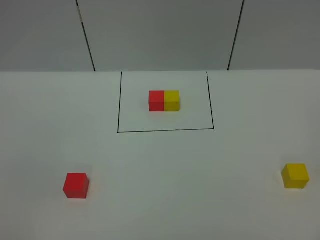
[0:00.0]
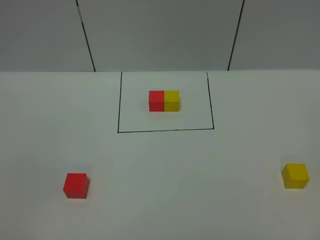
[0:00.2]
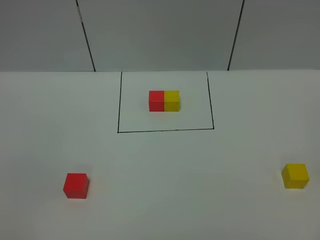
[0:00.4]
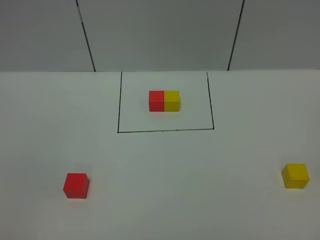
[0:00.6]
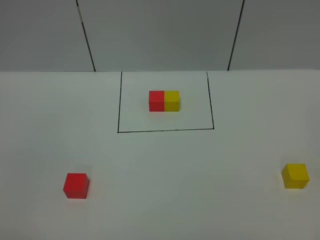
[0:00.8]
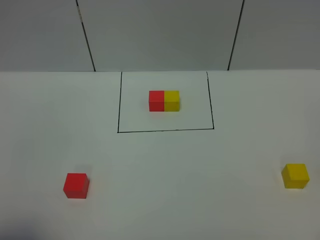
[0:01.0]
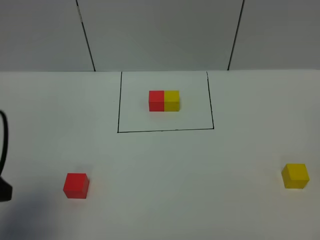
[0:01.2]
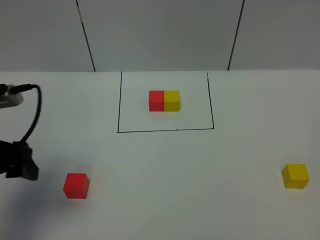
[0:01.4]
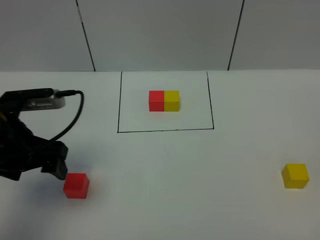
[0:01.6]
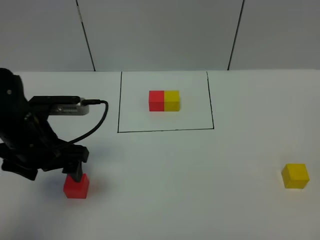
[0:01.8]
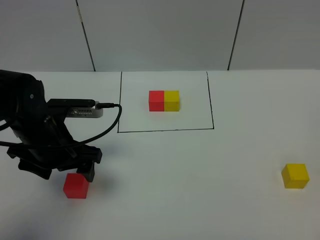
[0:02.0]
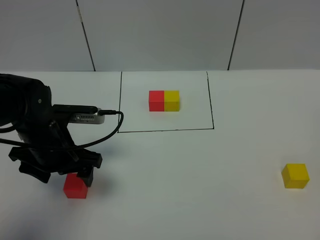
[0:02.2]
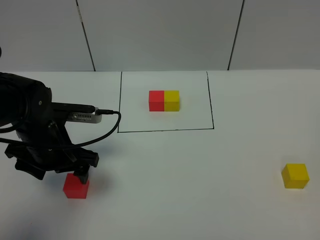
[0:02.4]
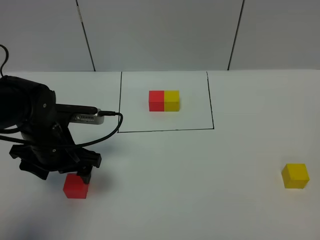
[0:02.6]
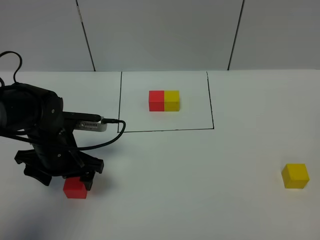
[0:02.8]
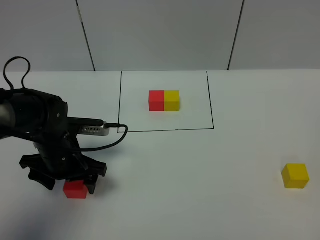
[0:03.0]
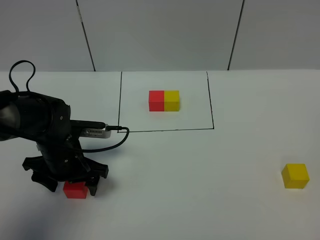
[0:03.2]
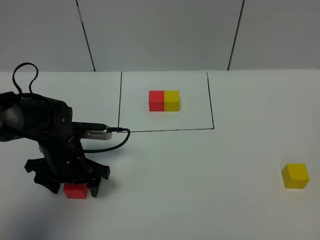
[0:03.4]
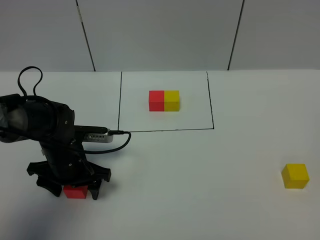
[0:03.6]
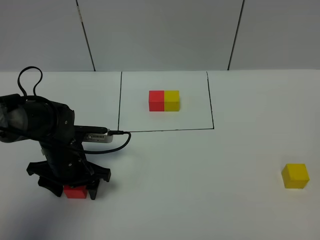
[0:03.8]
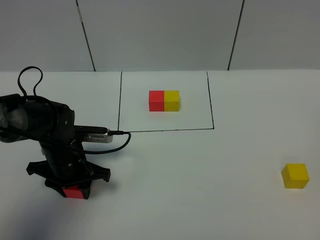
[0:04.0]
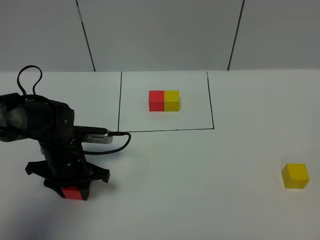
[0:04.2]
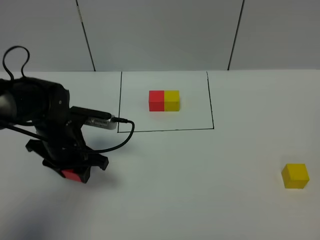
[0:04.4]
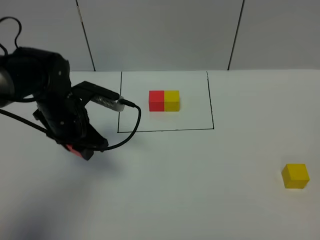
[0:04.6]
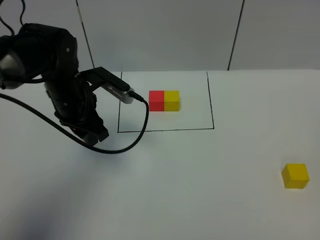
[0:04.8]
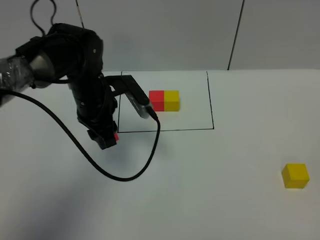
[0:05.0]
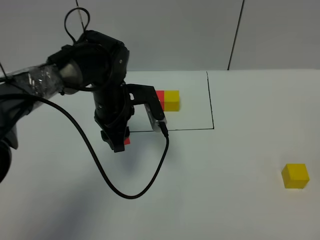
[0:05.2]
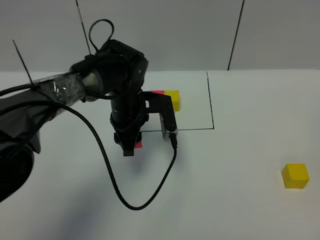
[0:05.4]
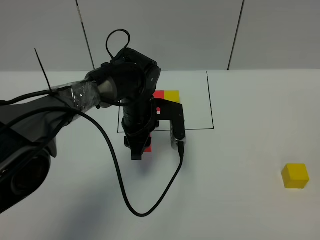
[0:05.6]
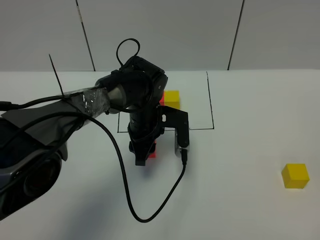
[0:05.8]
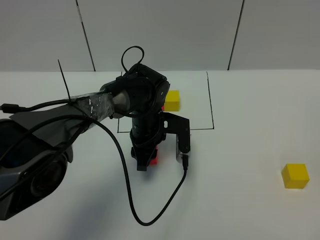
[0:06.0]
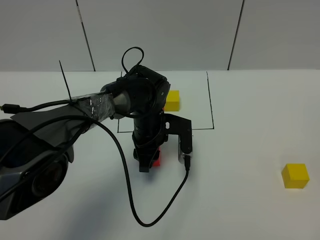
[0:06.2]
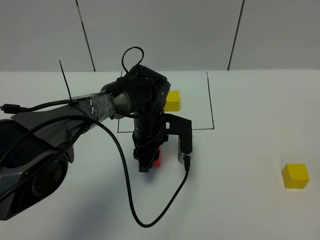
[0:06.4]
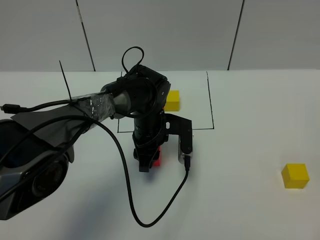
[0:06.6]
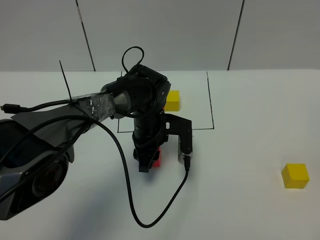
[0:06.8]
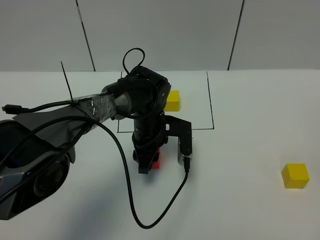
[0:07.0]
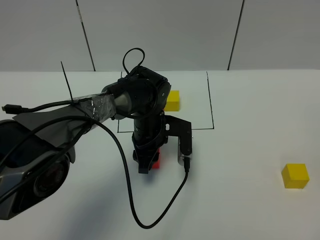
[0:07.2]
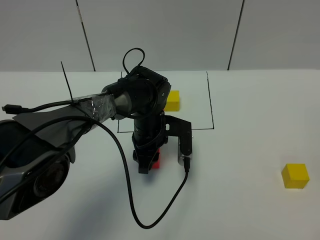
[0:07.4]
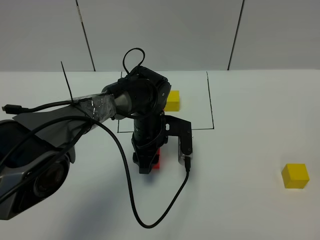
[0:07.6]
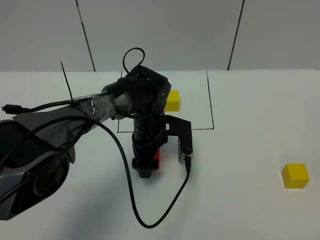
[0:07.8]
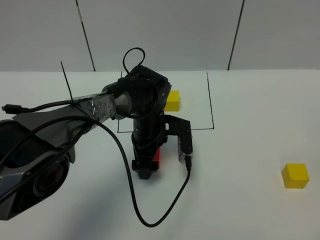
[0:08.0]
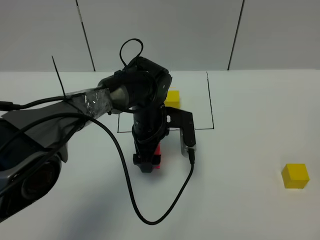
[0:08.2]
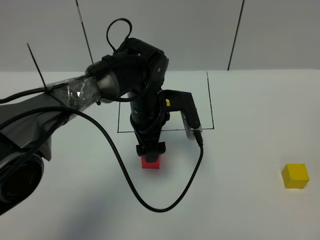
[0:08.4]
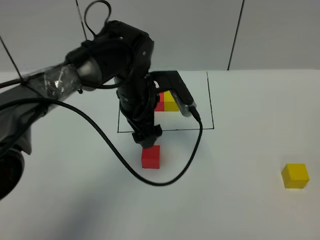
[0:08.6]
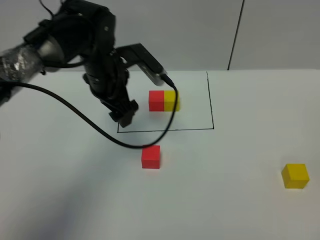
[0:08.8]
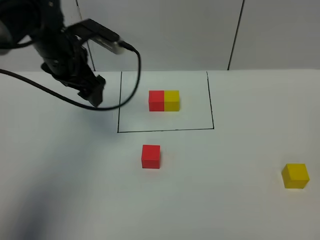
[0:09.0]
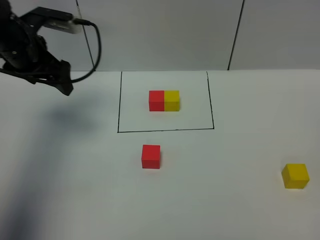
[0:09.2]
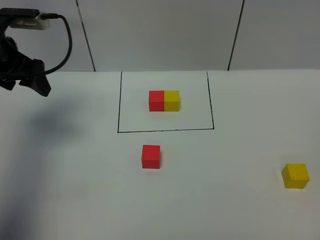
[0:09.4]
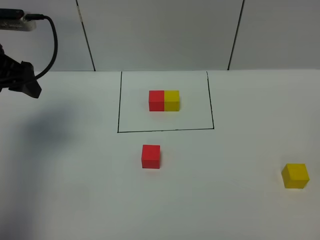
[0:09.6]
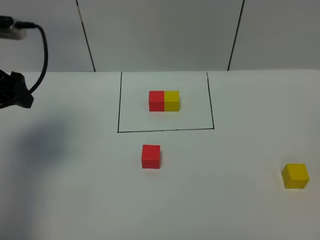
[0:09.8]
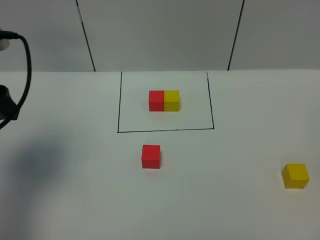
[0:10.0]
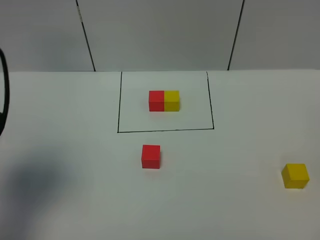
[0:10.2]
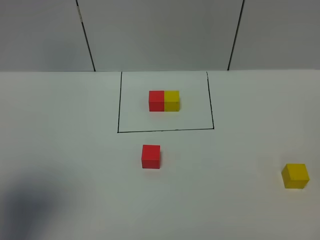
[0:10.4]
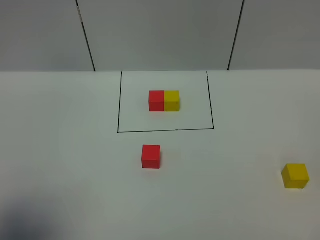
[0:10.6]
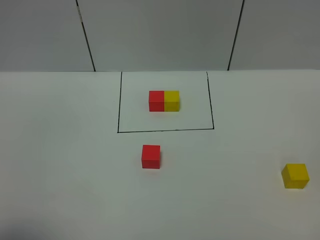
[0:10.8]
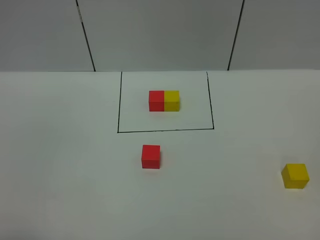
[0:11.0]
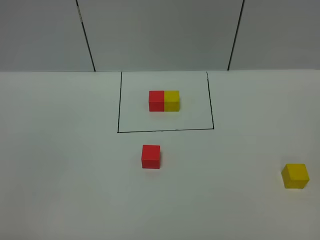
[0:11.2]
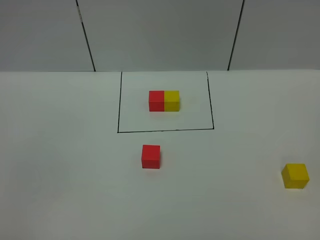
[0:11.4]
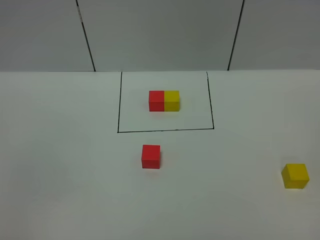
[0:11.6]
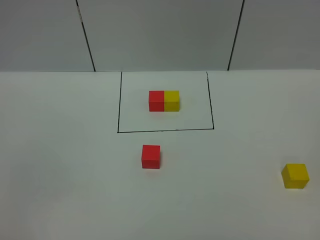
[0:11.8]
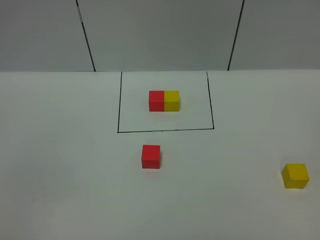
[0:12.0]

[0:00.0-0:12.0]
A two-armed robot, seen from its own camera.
Task of the whole recording: According to the building block template in front, assemble the scattered blocks together.
Step, 0:01.2 to 0:08.6: Put the red cube in the center of the table.
0:00.0 to 0:01.6: The left gripper travels forward by approximately 30 cm.
0:01.6 to 0:03.0: The left gripper goes about 10 cm downward.
0:03.0 to 0:04.4: The left gripper closes.
0:04.4 to 0:06.0: The left gripper moves to the right and forward, some 15 cm.
0:06.0 to 0:07.6: Both grippers stay put.
0:07.6 to 0:09.0: The left gripper shifts approximately 25 cm to the left and upward, and opens.
0:09.0 to 0:10.4: The left gripper moves backward, about 30 cm.
0:10.4 to 0:12.0: The left gripper travels backward and downward by approximately 20 cm.

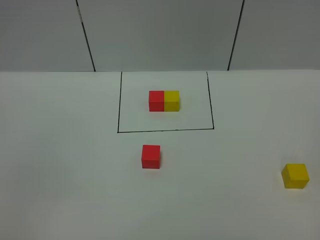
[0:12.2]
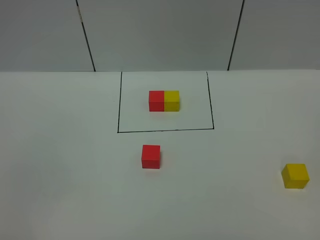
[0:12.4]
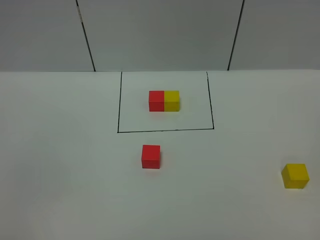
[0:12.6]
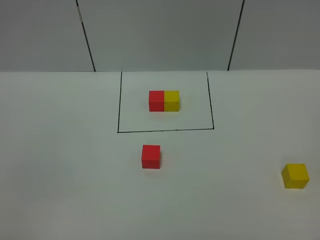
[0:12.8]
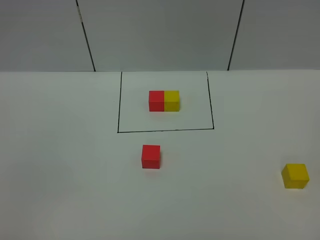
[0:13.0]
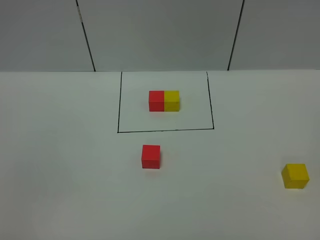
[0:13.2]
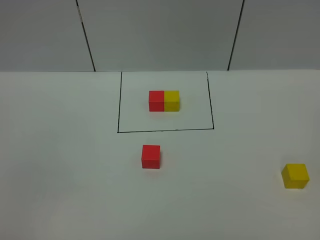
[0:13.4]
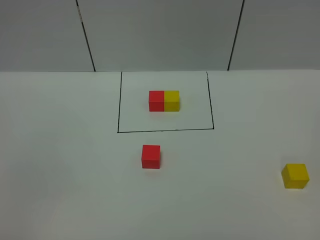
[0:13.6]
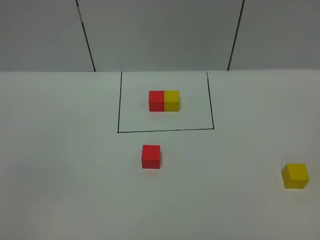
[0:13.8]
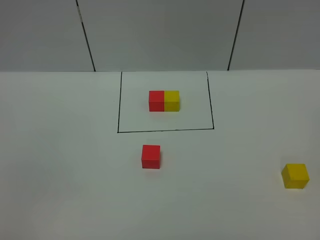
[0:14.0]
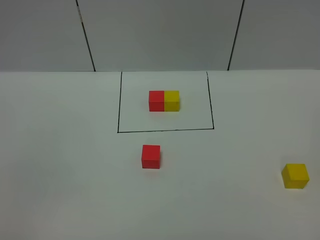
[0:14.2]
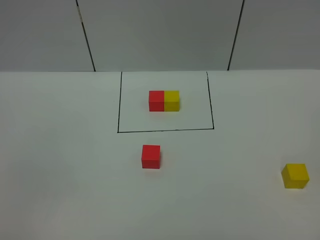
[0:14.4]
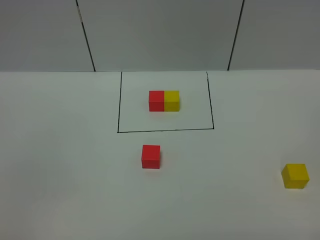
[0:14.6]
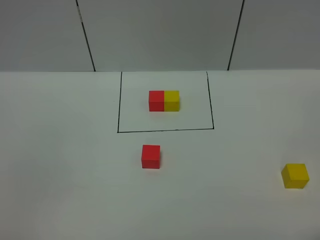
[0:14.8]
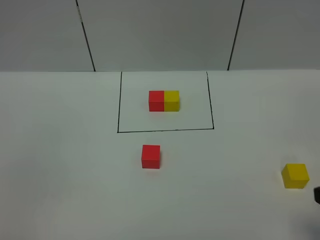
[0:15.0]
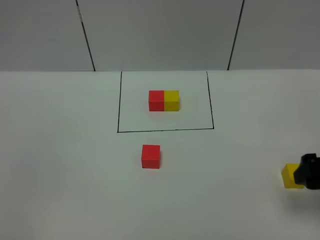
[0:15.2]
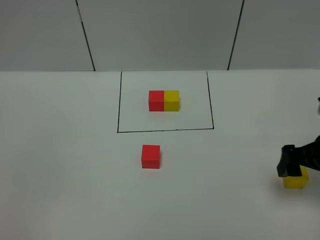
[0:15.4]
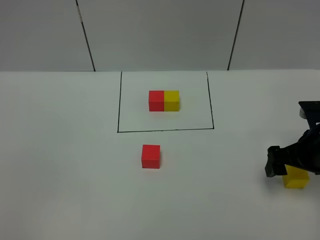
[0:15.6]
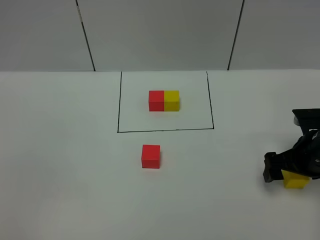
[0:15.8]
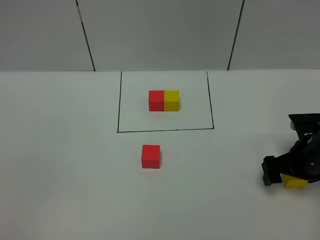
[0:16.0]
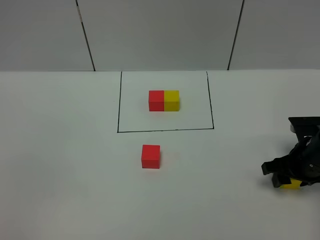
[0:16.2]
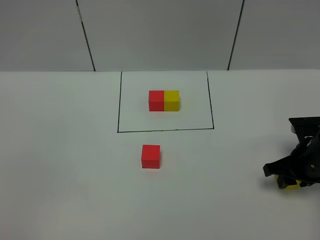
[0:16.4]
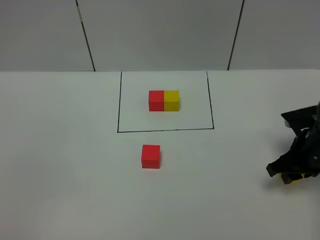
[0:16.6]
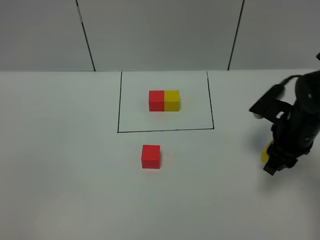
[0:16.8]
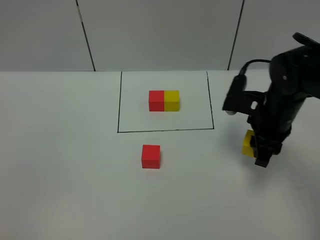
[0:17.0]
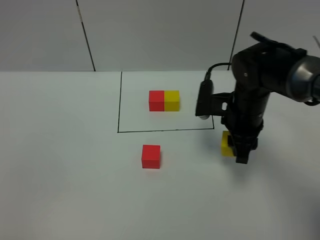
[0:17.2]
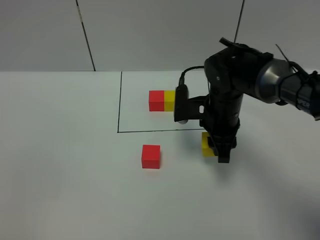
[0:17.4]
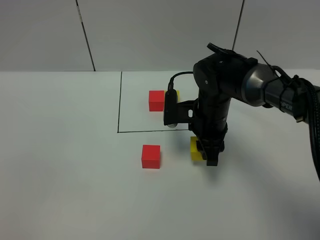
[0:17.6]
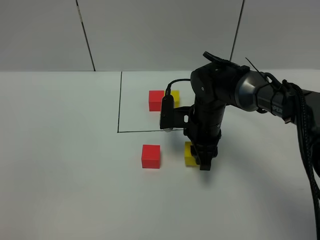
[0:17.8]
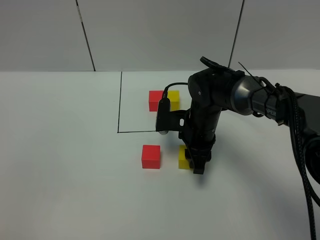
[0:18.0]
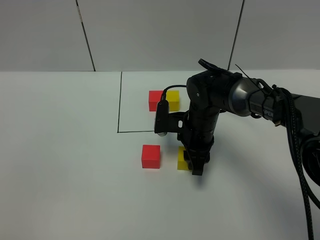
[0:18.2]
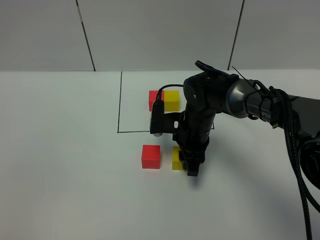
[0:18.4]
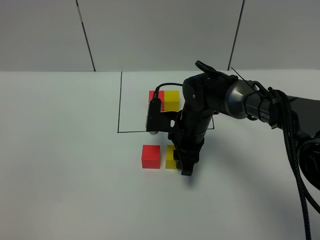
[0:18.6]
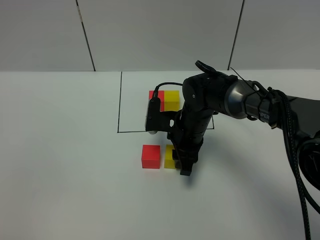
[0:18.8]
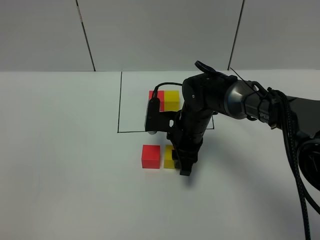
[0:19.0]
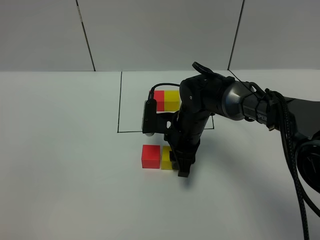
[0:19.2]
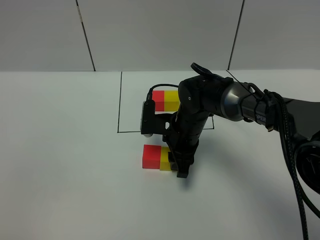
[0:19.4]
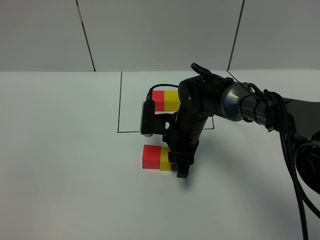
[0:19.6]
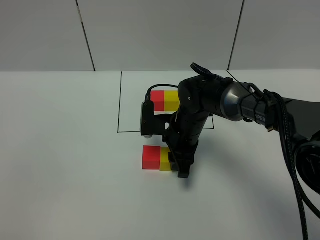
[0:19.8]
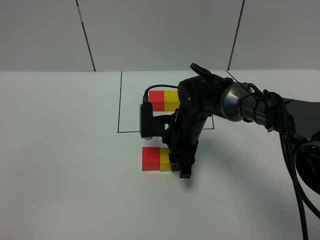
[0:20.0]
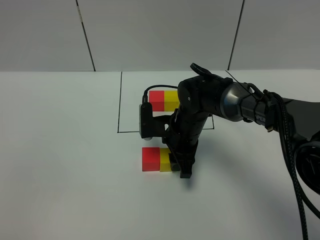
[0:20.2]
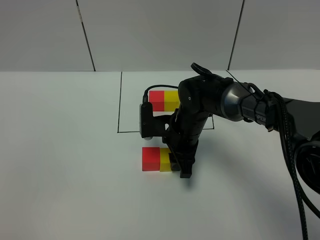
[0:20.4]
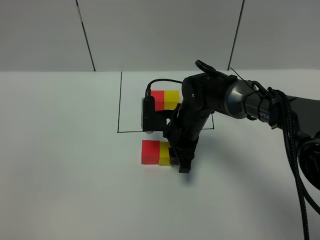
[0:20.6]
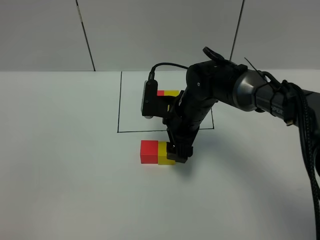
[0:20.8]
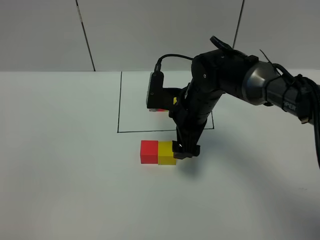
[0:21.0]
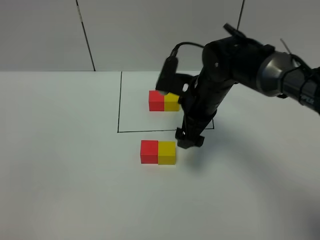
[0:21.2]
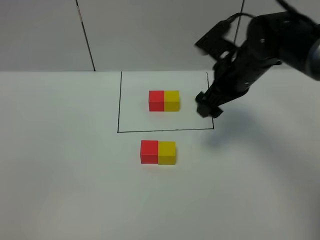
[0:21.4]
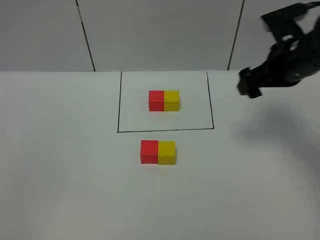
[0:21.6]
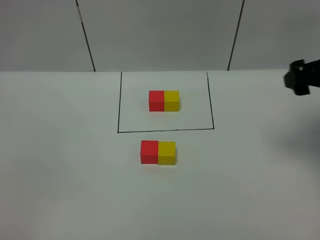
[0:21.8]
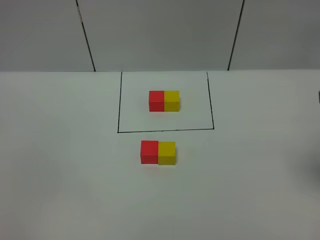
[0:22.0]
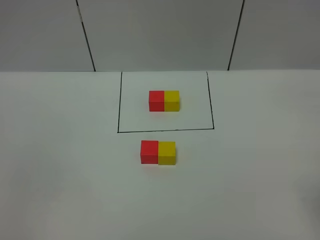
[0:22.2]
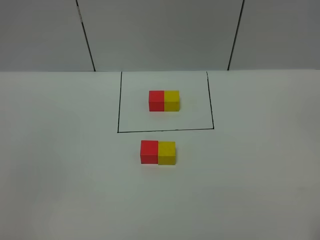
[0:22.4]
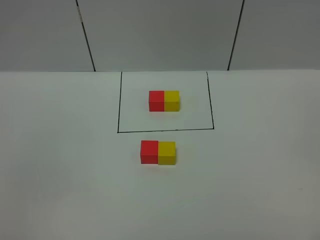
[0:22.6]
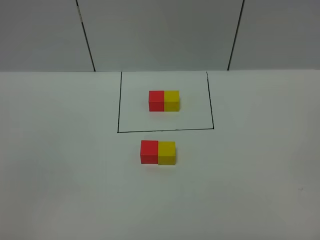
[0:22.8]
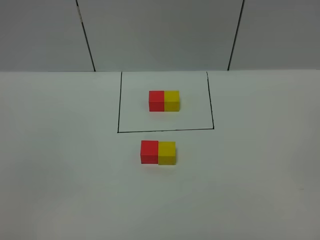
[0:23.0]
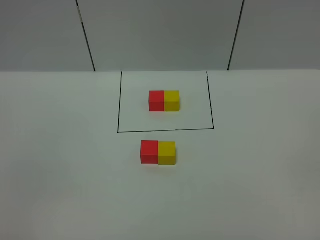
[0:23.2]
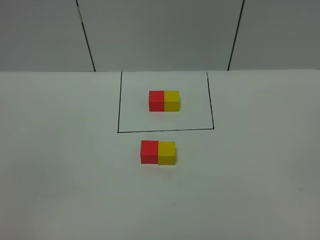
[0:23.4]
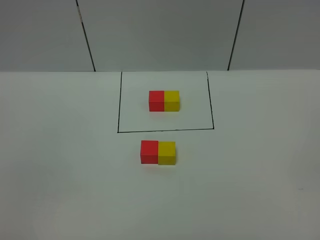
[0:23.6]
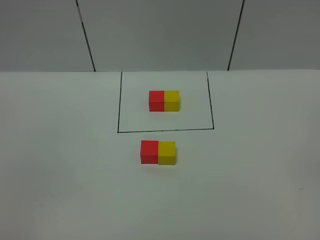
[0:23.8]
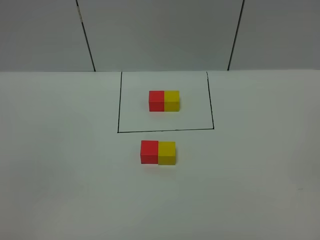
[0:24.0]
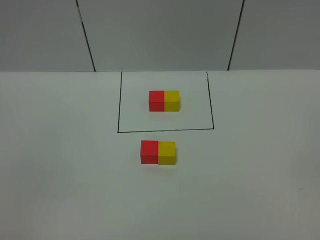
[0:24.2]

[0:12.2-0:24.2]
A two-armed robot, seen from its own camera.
Task of the whole recording: According to the building block template in front, assemble the scattered blocks together.
Step, 0:12.2 to 0:21.2: Put the yellow cube on the right of the red cube.
0:12.2 to 0:13.8: The two grippers keep their place.
0:13.8 to 0:15.2: The right gripper moves forward, some 25 cm, and opens its fingers.
0:15.2 to 0:16.6: The right gripper heads forward and downward, covering roughly 15 cm, and closes its fingers.
0:16.6 to 0:18.2: The right gripper is displaced to the left by some 20 cm.
0:18.2 to 0:19.8: There are only small adjustments of the grippers.
0:19.8 to 0:21.2: The right gripper heads upward, covering about 10 cm, and opens up.
0:21.2 to 0:22.6: The right gripper heads backward and to the right, covering some 40 cm.
